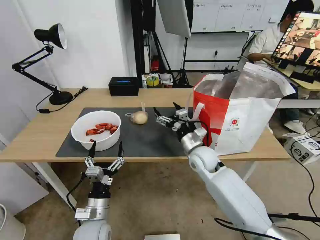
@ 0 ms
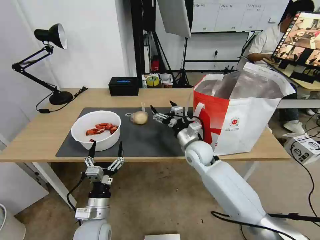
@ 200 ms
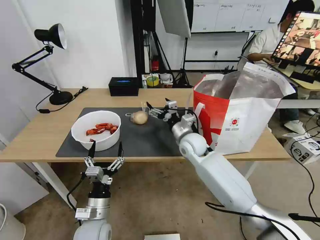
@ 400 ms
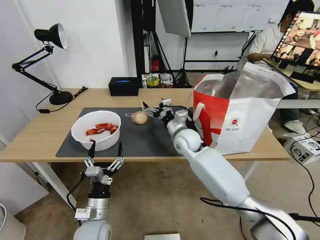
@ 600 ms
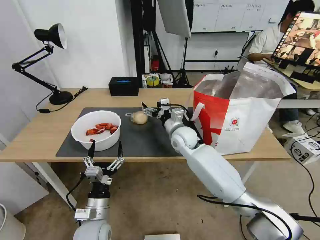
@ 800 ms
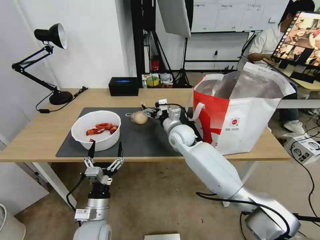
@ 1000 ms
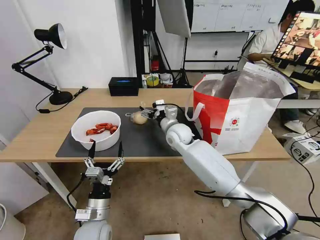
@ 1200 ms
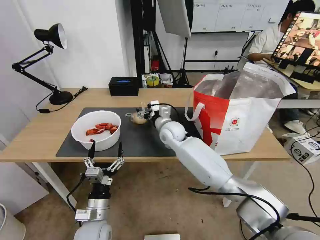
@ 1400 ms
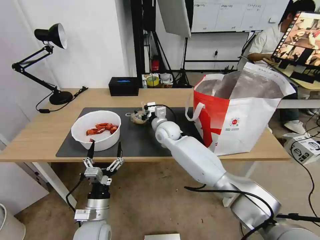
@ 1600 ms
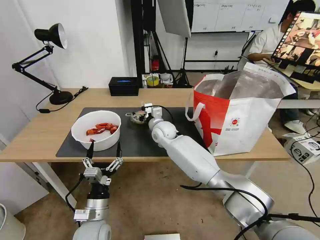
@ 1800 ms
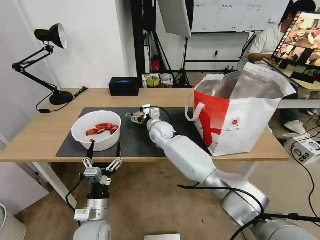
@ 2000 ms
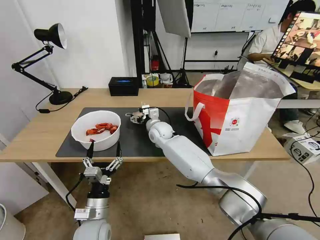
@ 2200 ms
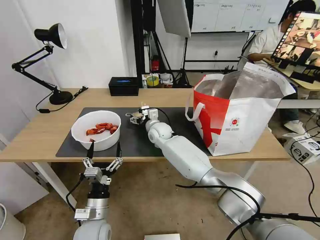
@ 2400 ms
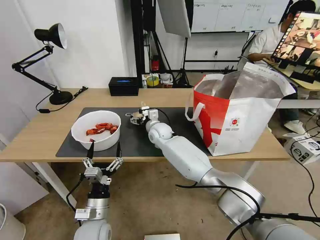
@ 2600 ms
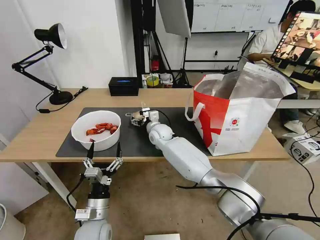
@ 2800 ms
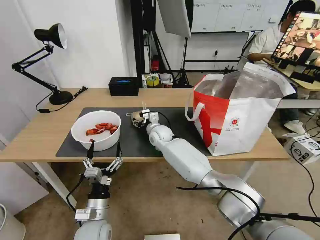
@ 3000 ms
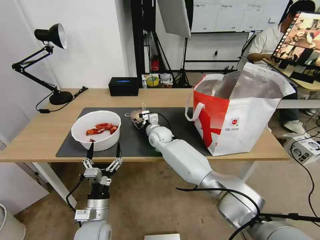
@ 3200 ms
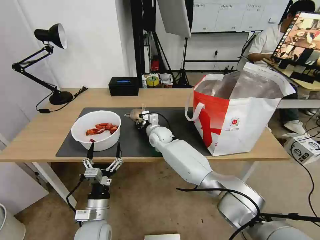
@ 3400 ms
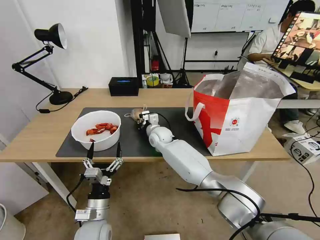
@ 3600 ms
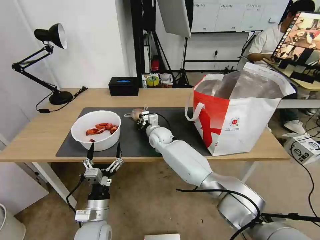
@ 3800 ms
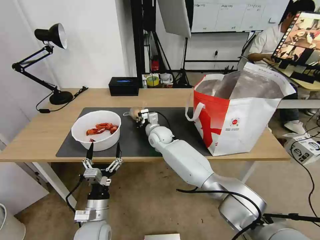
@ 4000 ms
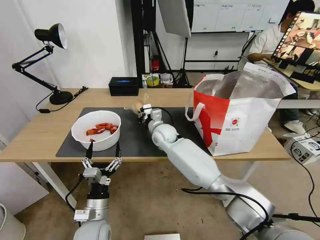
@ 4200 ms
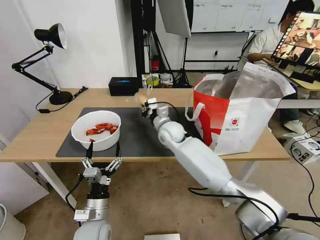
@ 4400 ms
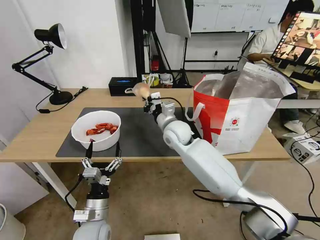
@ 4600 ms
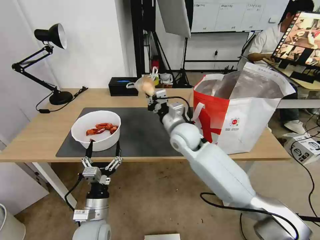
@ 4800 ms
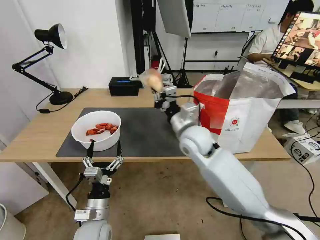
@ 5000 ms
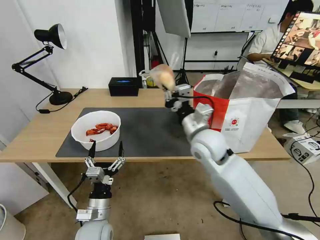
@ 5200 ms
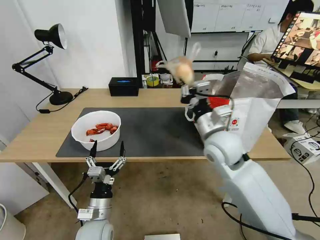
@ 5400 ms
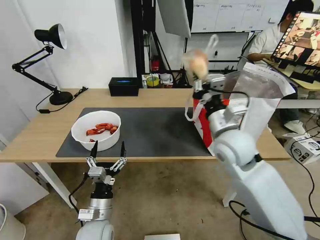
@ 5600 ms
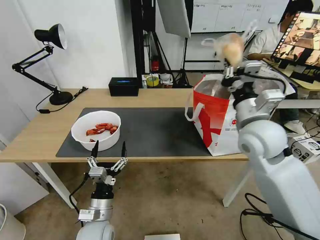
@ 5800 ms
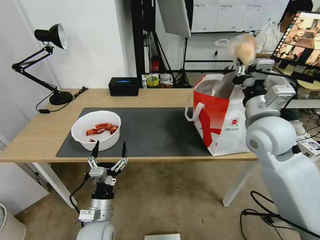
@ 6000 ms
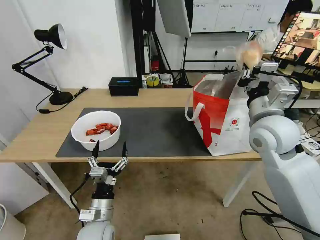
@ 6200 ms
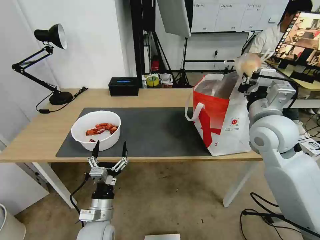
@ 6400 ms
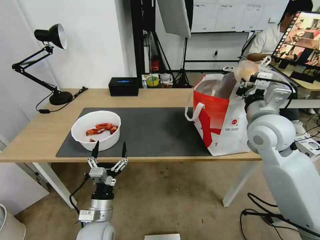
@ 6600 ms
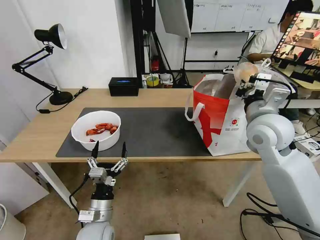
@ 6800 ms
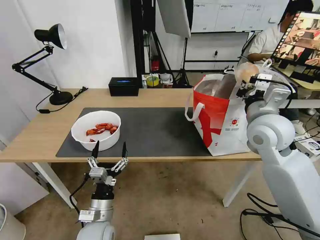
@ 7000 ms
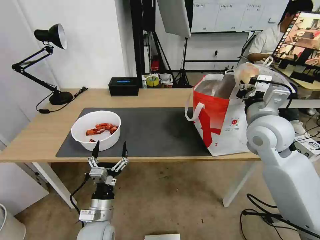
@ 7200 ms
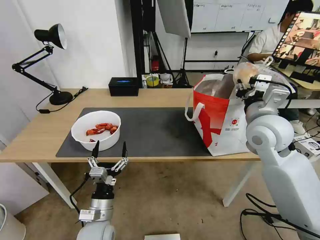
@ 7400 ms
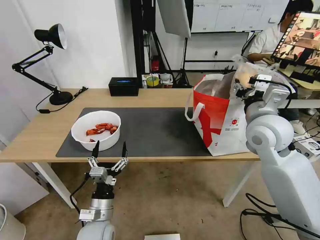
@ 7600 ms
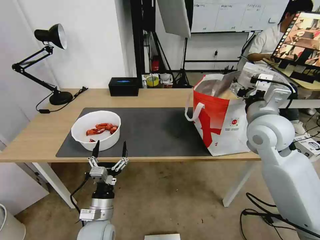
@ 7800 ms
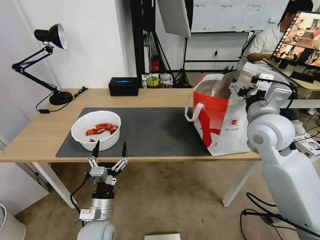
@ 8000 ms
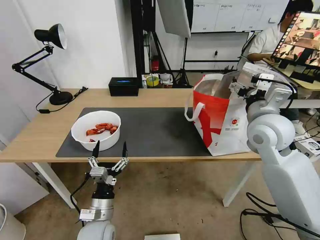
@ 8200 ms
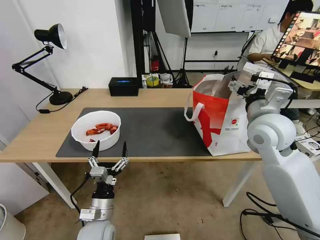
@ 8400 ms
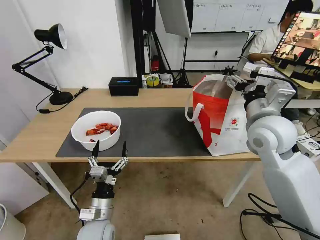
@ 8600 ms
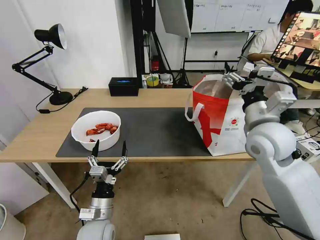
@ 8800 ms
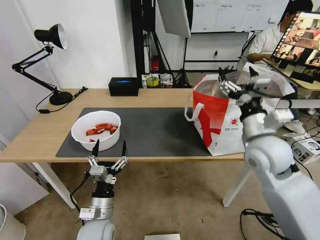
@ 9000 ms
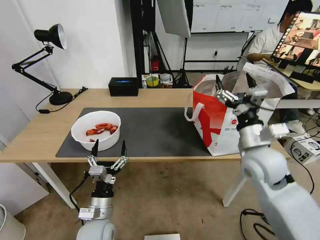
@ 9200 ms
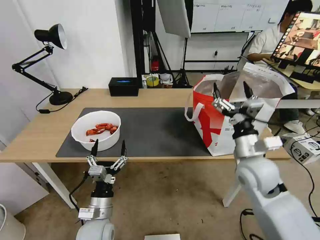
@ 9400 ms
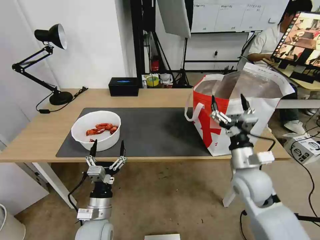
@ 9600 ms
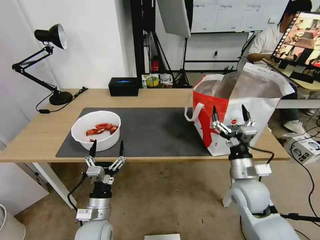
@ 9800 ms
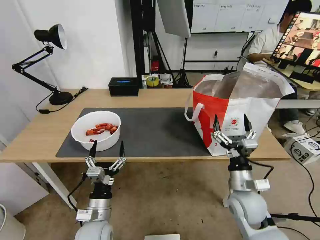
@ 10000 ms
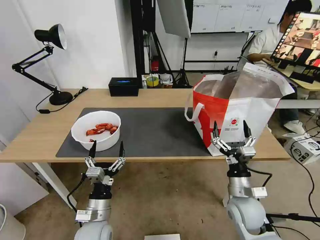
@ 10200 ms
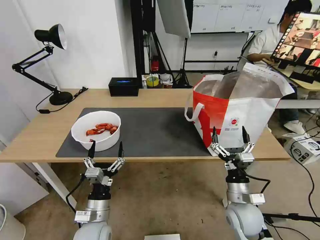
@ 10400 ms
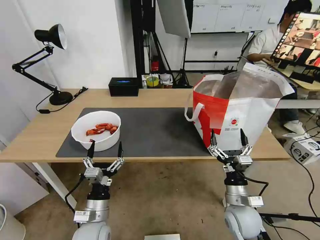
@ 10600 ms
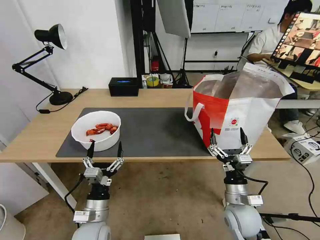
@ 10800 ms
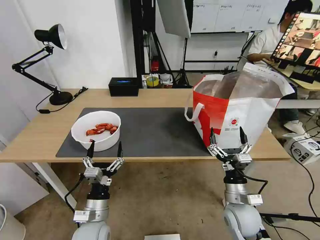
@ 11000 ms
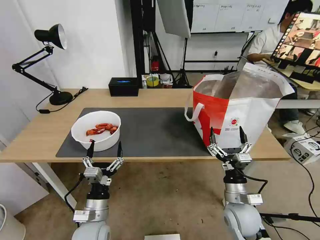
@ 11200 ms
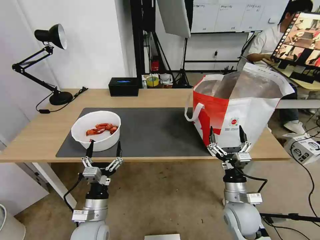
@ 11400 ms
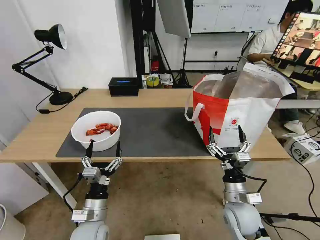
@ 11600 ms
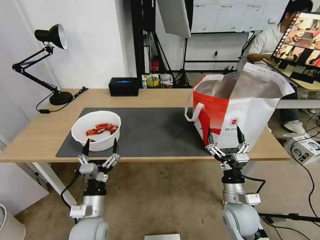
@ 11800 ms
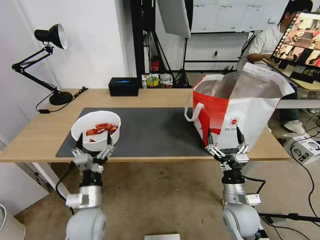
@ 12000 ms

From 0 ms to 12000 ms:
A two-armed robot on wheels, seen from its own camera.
Task of the whole recording: Pick up the trash from the table and place it into the takeout bag.
From 0 ms to 1600 ms: The right gripper is displaced to the left and forward by about 15 cm.
From 1600 ms to 3000 ms: The grippers stay close to where they were, moving slightly.
From 3000 ms to 4400 ms: The right gripper heads upward, covering about 5 cm, and closes up.
From 4400 ms to 6000 ms: The right gripper shifts about 30 cm to the right, upward and backward.
From 6000 ms to 7600 ms: The right gripper opens.
From 7600 ms to 9000 ms: The right gripper moves approximately 5 cm.
From 9000 ms to 10400 ms: The right gripper shifts about 20 cm downward and backward.
From 10400 ms to 12000 ms: There are only small adjustments of the grippers.

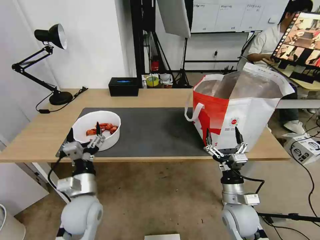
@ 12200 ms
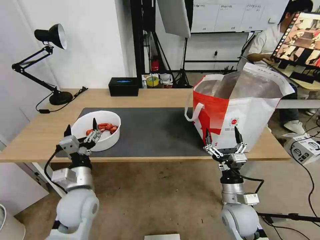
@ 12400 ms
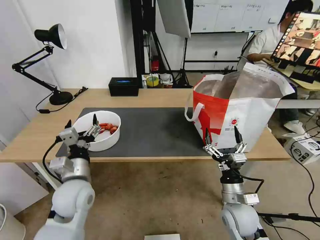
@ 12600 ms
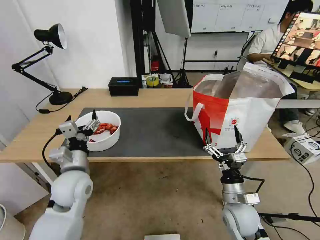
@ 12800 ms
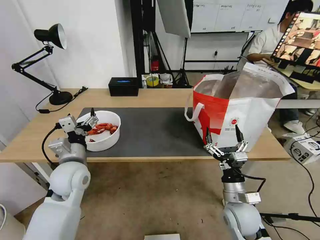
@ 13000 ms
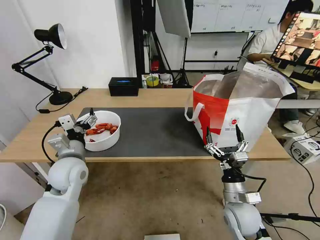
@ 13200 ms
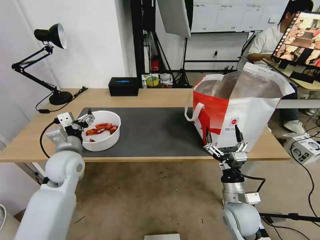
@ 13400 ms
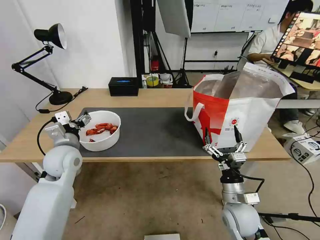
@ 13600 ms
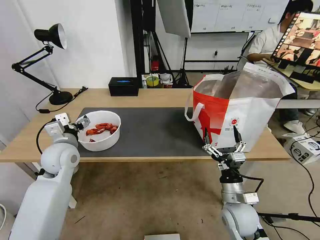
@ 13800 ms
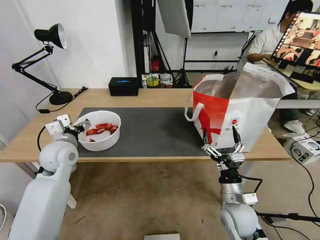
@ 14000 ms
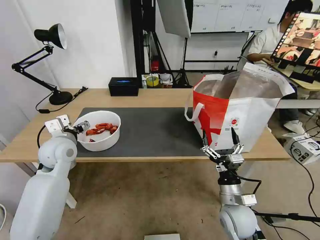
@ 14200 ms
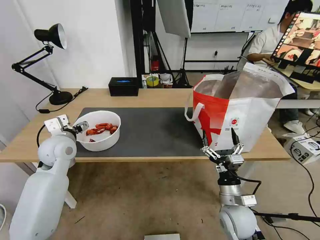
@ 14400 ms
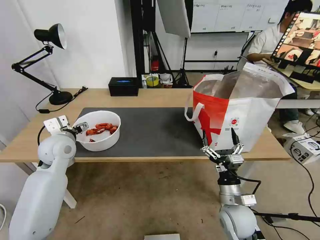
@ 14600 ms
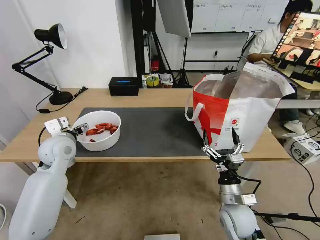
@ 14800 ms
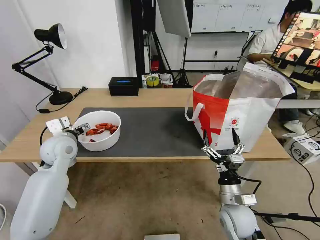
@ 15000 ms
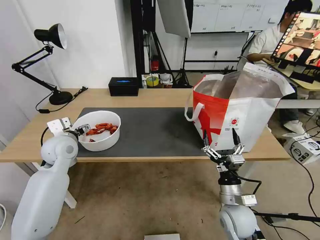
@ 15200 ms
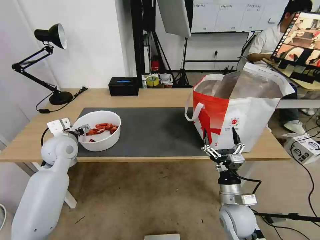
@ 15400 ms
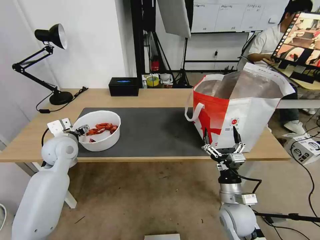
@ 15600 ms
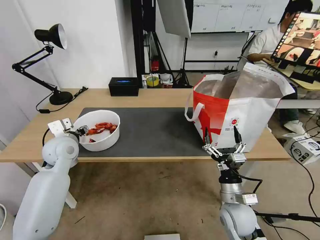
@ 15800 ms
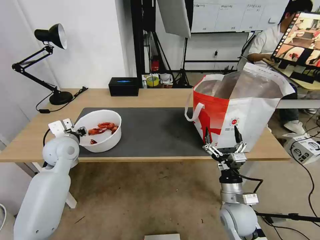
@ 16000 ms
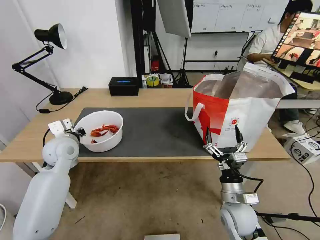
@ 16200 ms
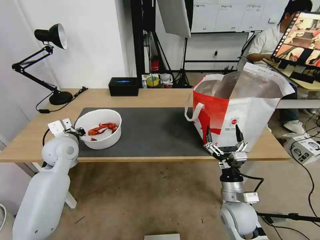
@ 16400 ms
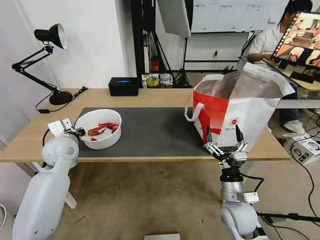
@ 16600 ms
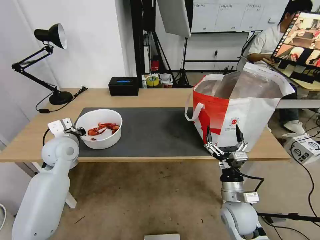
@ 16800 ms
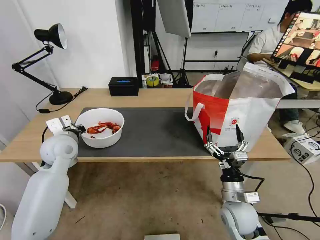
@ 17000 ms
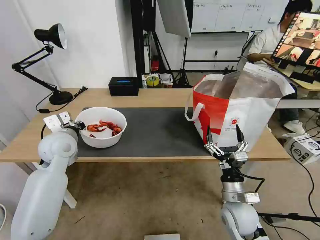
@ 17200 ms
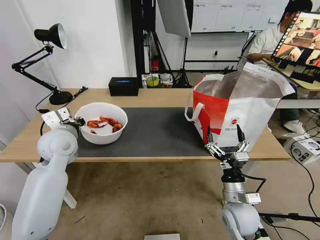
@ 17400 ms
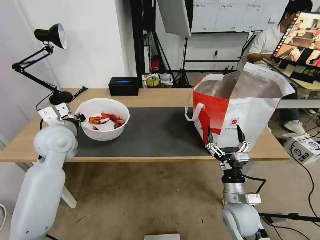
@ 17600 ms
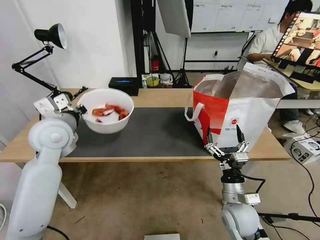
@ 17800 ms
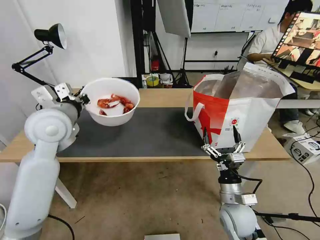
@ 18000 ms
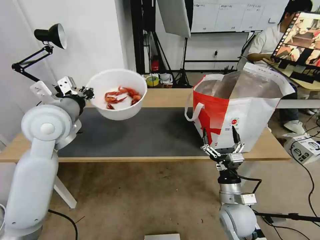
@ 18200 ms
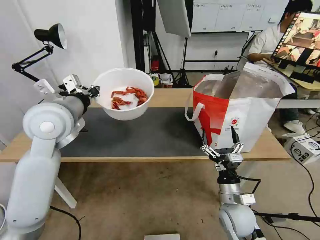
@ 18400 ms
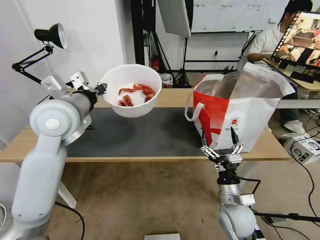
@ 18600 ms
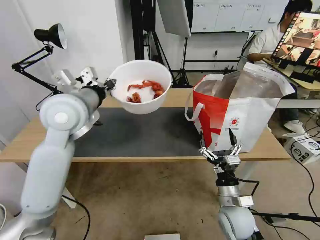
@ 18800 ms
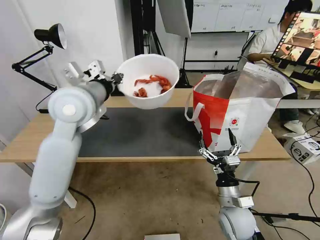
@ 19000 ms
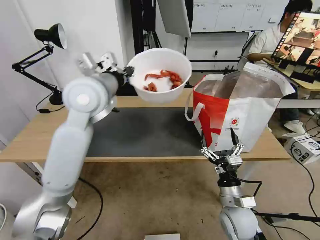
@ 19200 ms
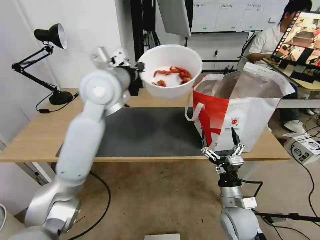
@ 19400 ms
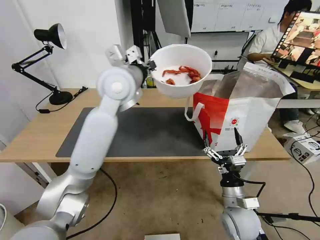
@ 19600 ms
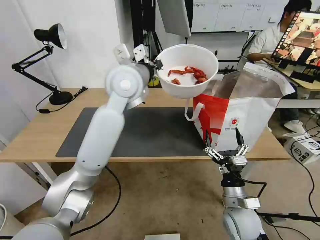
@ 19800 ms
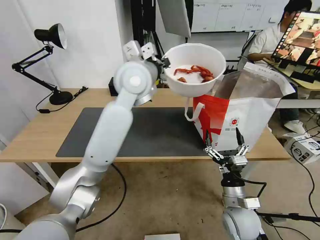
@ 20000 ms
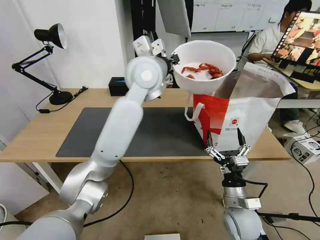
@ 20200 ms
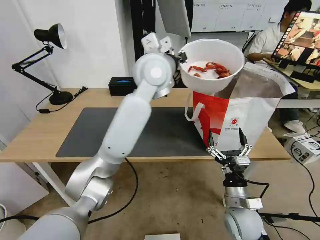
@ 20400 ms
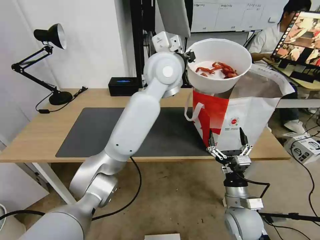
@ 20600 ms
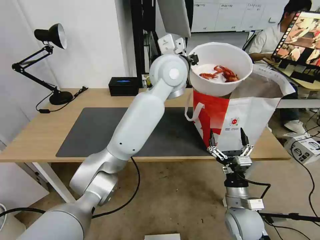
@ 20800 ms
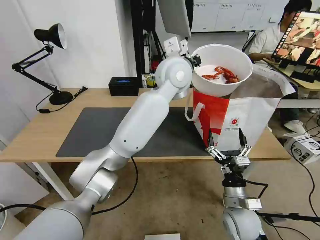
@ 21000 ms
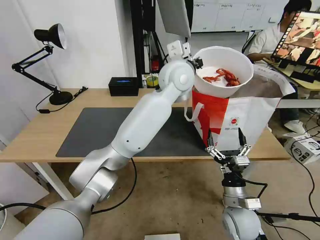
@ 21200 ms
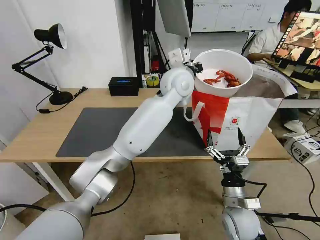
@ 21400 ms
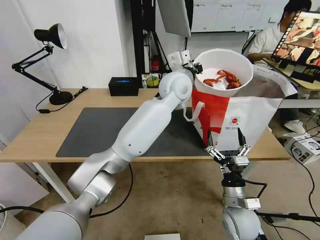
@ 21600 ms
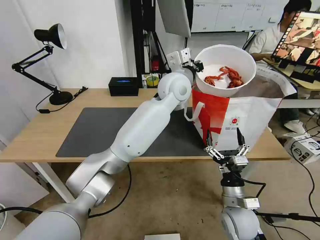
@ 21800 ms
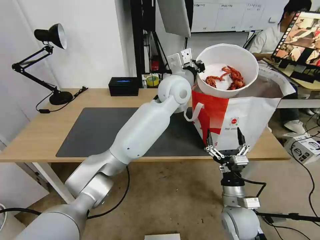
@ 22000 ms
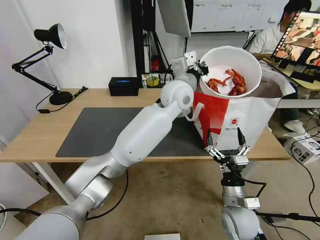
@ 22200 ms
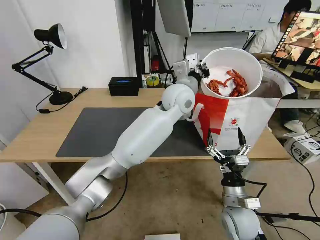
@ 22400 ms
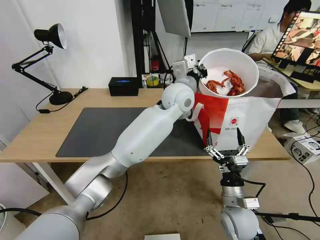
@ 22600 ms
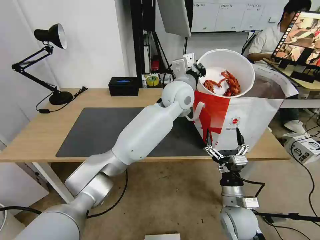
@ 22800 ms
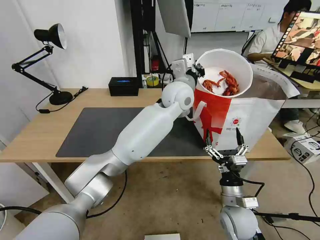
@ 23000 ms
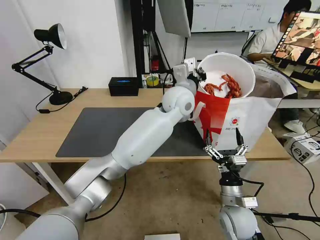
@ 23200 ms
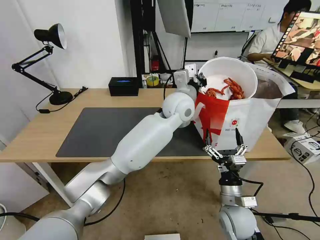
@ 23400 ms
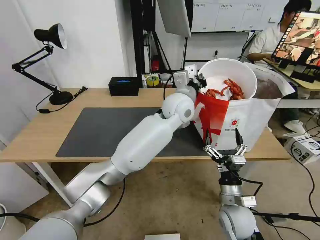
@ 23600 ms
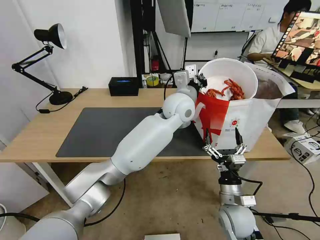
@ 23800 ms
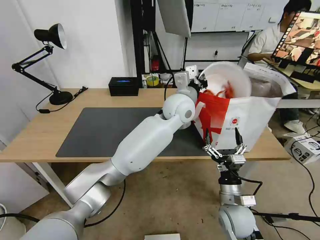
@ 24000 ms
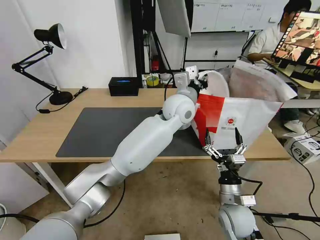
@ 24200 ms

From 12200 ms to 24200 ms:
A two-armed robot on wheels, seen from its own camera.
Task of the whole recording: Pick up the trash from the table and place it into the takeout bag.
From 12200 ms to 13800 ms: The left gripper shifts about 20 cm forward, to the left and upward.
From 13800 ms to 15200 ms: There are only small adjustments of the grippers.
From 15200 ms to 16600 ms: The left gripper closes up.
From 16600 ms to 18200 ms: The left gripper shifts approximately 15 cm upward.
From 18200 ms to 19800 ms: The left gripper travels to the right and forward by roughly 20 cm.
From 19800 ms to 21200 ms: The left gripper moves to the right, some 15 cm.
From 21200 ms to 22600 ms: The left gripper travels downward by approximately 5 cm.
From 22600 ms to 24200 ms: The left gripper opens up.
